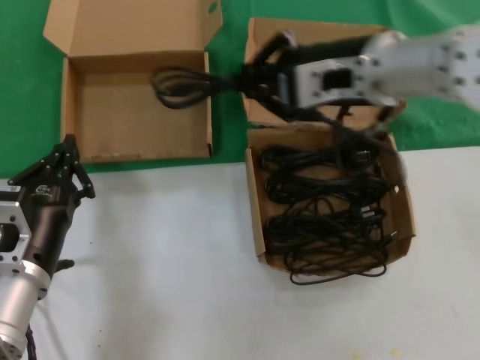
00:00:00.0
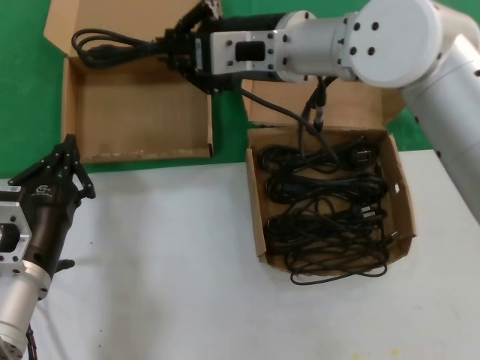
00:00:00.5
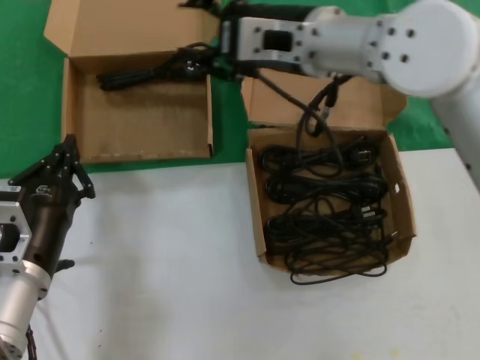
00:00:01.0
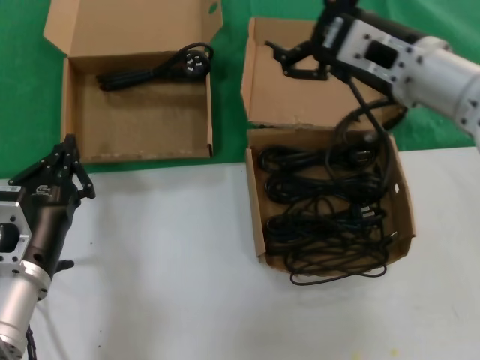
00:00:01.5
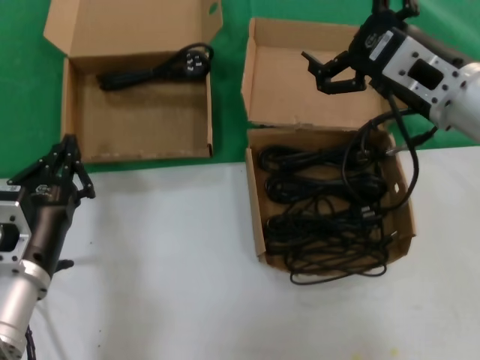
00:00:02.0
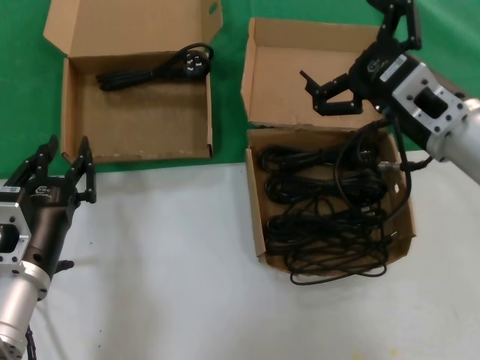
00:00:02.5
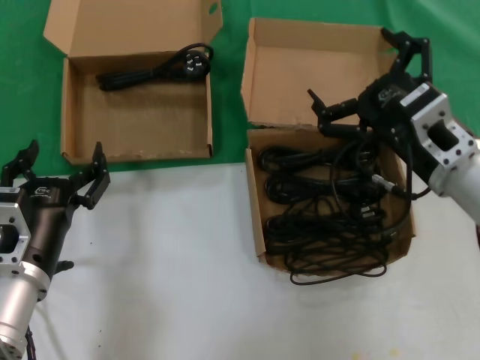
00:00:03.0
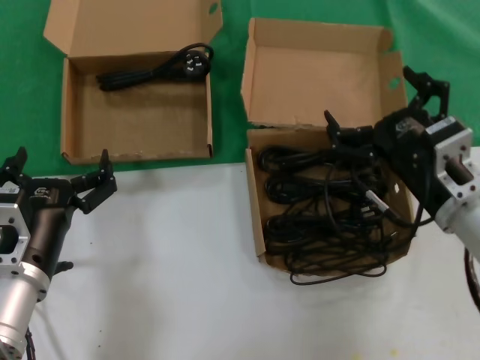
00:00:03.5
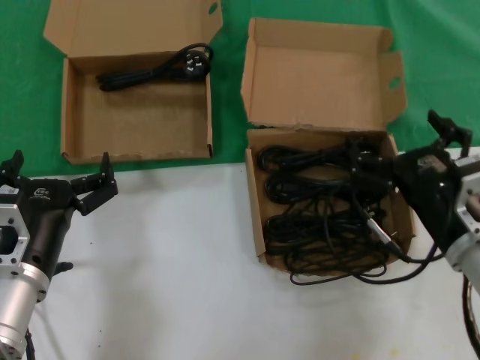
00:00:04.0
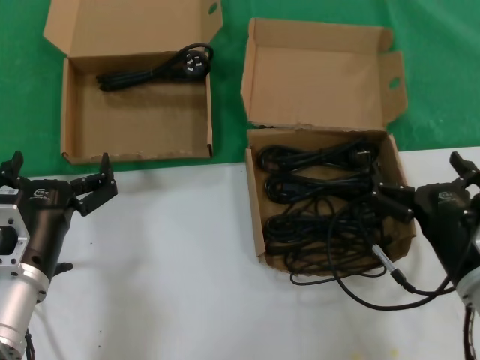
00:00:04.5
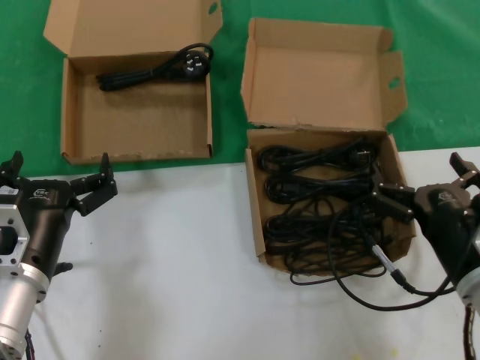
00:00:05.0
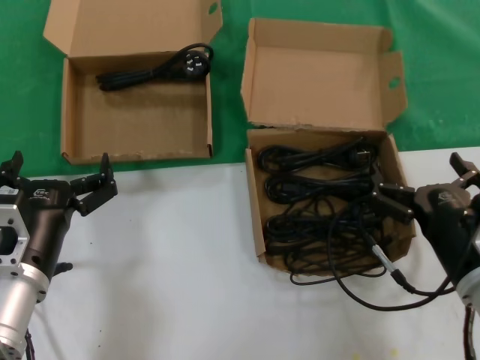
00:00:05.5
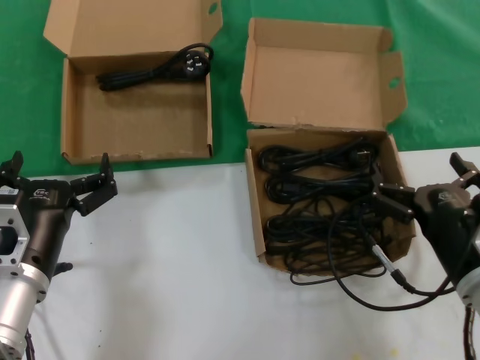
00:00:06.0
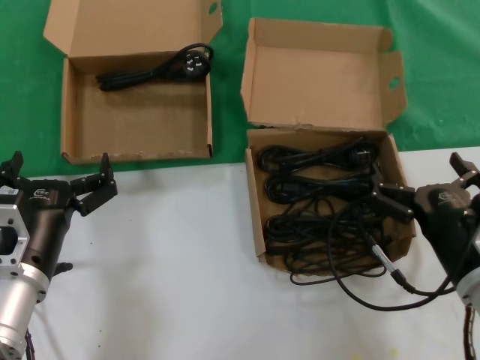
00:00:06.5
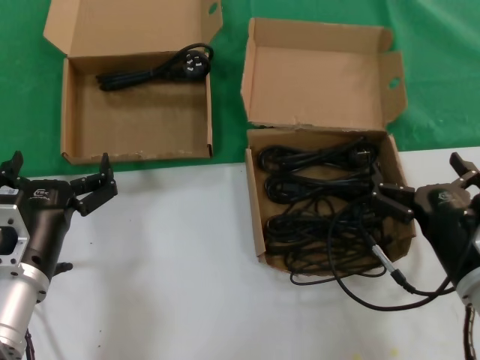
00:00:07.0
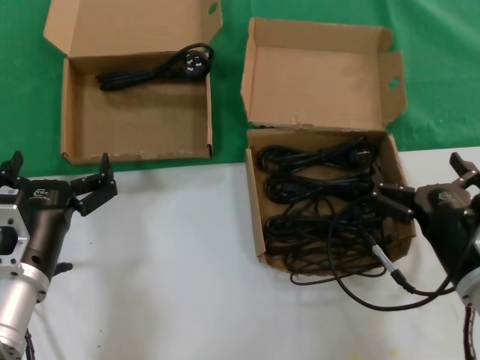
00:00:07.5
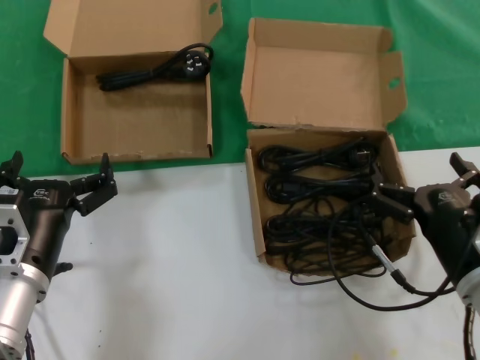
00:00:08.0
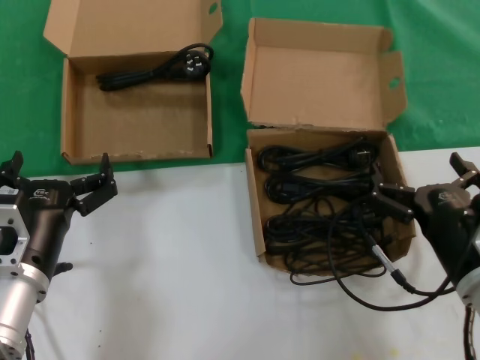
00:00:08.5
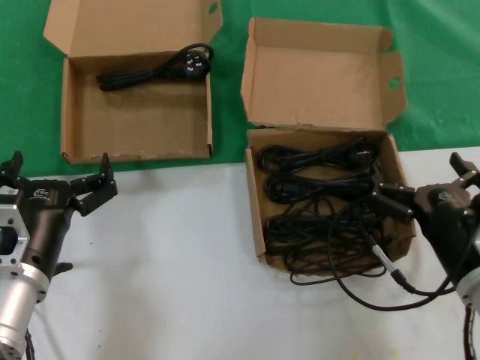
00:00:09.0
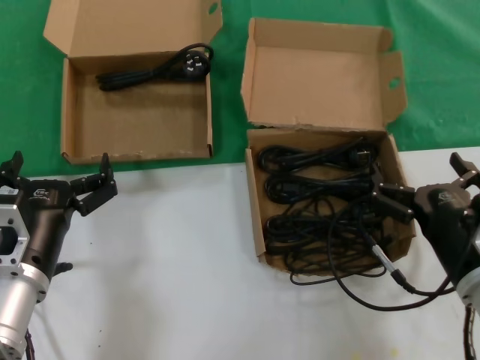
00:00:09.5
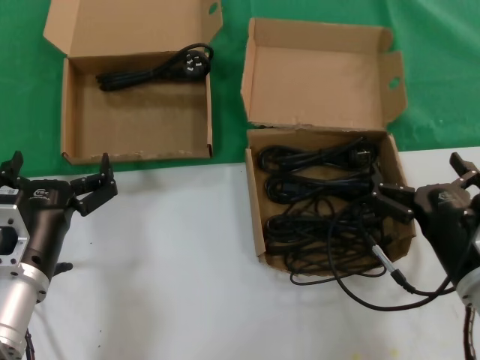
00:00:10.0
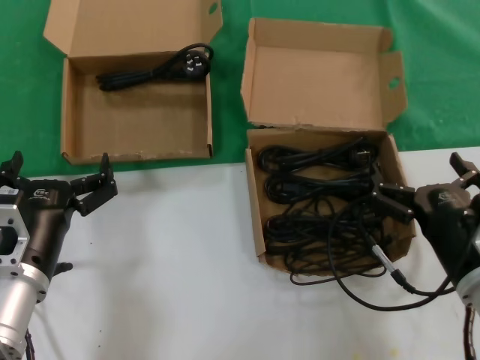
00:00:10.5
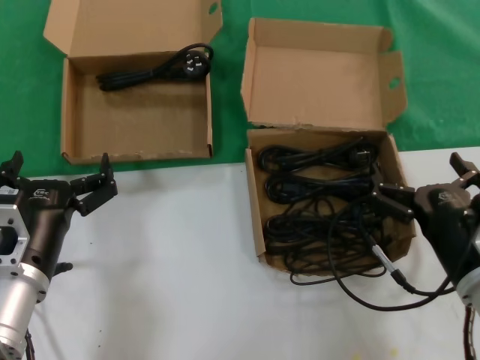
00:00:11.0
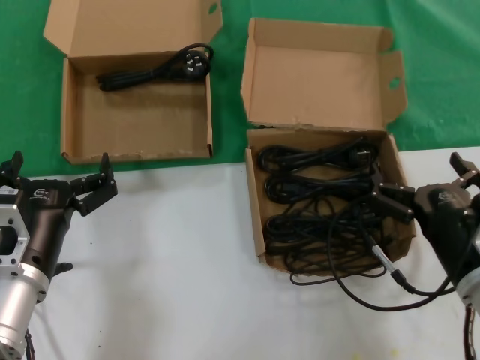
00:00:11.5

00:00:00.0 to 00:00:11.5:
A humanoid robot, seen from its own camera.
Task of the whole recording: take the parts from the box containing them and put them into an empty box.
00:00:00.0 to 00:00:02.0: The right hand is displaced to the right and downward by some 10 cm.
00:00:02.0 to 00:00:04.0: The right hand moves downward and backward, roughly 20 cm.
00:00:04.0 to 00:00:06.0: There are only small adjustments of the hands.
00:00:06.0 to 00:00:11.5: The two hands keep their place.

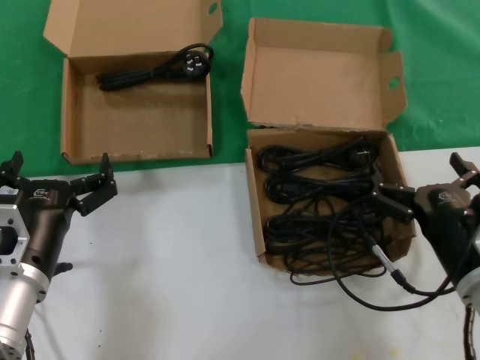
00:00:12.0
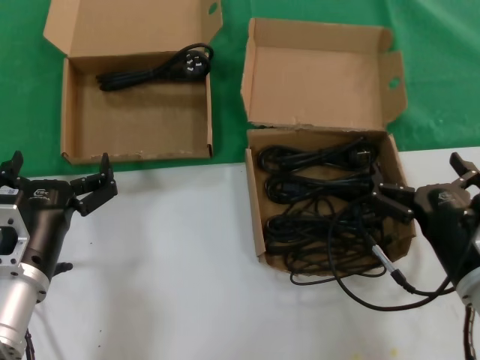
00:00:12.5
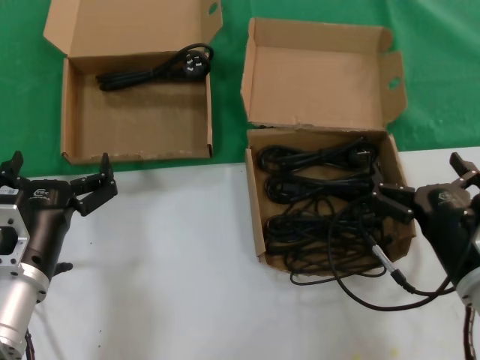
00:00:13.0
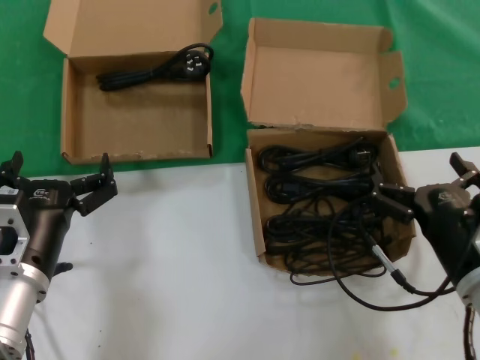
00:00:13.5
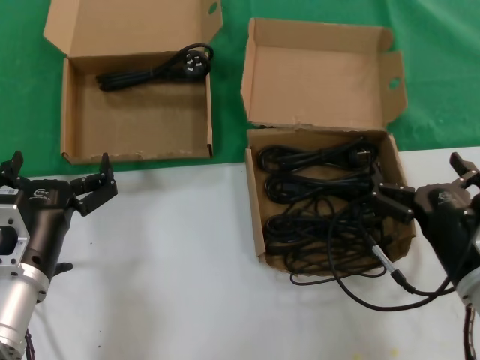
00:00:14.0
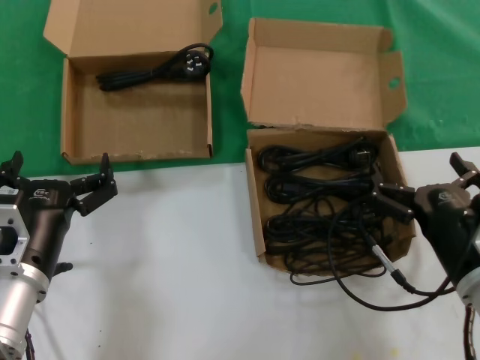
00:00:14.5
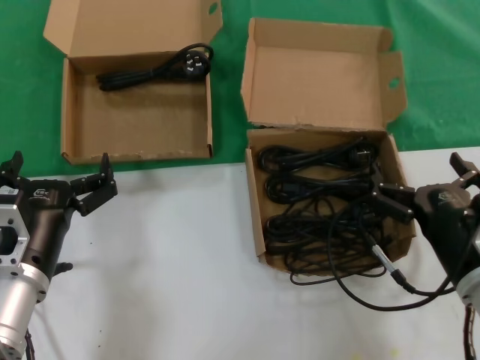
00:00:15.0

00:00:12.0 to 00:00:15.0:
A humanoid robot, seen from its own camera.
Task of the whole recording: take the parts from the box containing them and put them into an empty box.
00:00:12.0 to 00:00:15.0: Both hands stay about where they are.

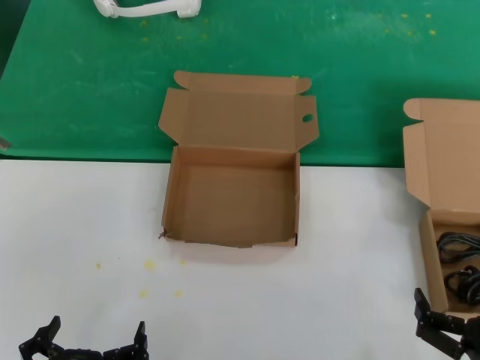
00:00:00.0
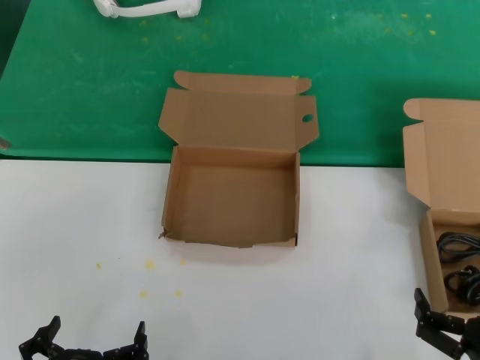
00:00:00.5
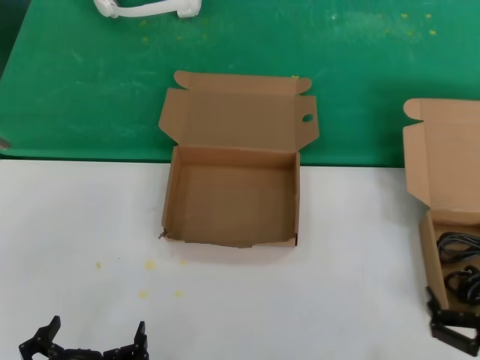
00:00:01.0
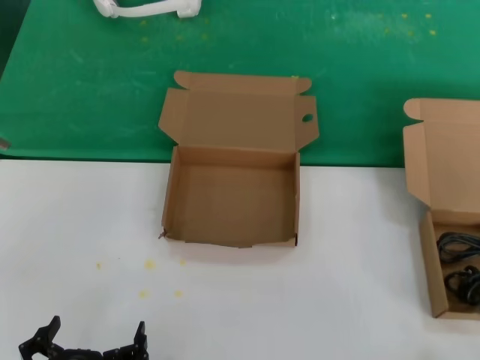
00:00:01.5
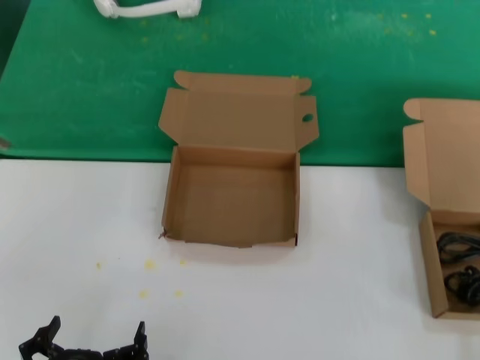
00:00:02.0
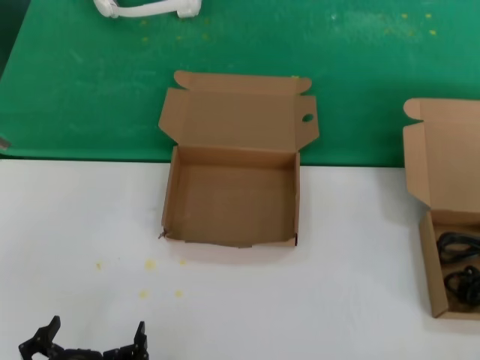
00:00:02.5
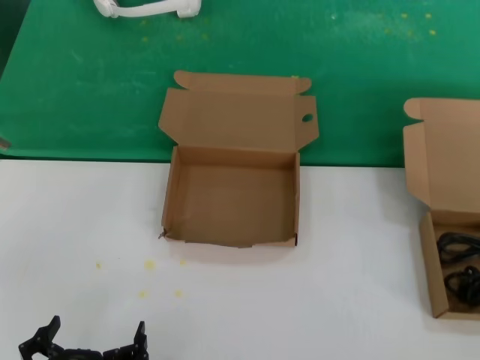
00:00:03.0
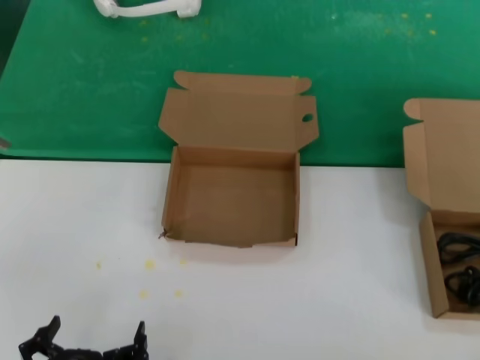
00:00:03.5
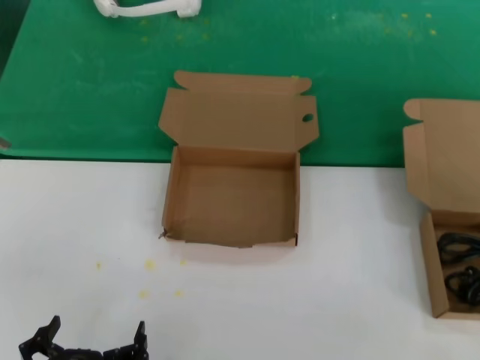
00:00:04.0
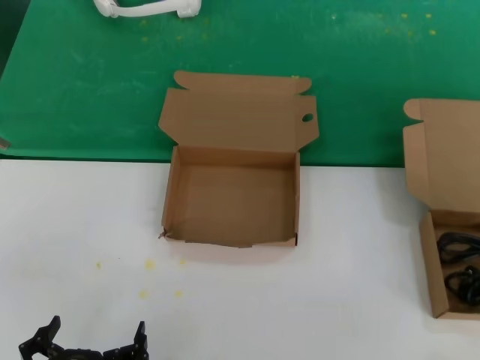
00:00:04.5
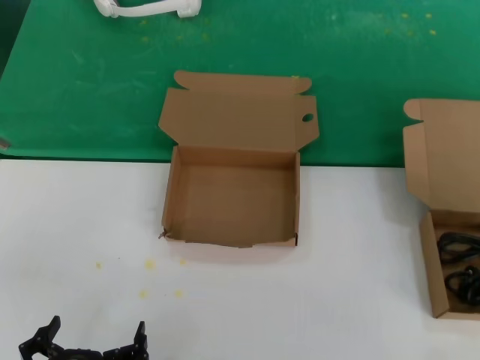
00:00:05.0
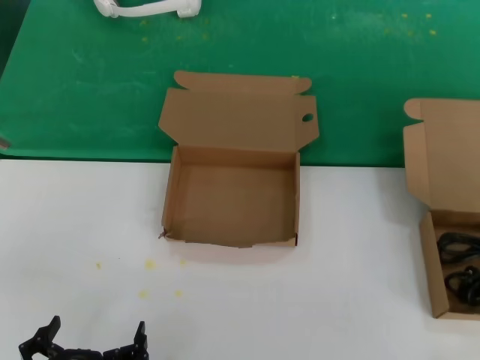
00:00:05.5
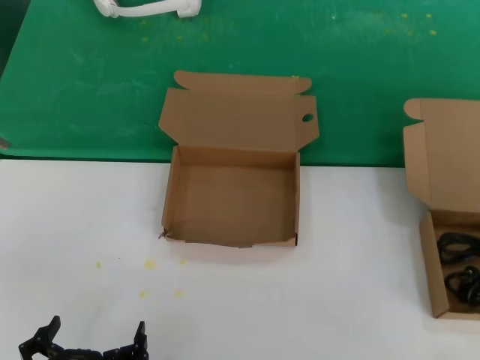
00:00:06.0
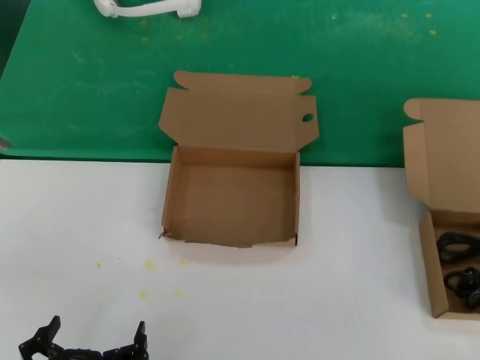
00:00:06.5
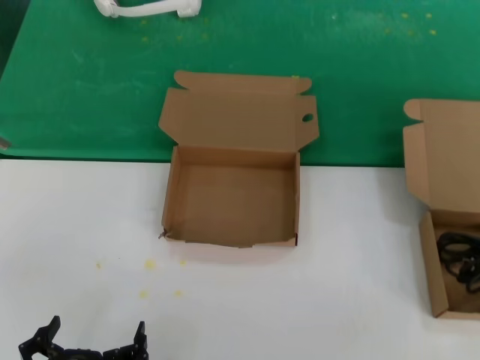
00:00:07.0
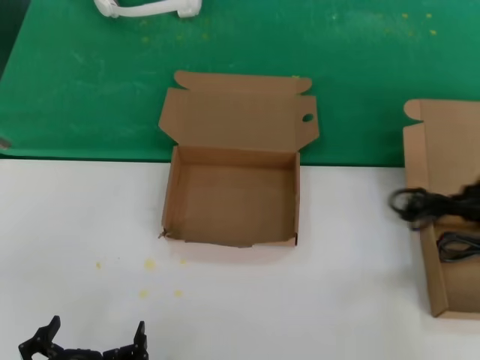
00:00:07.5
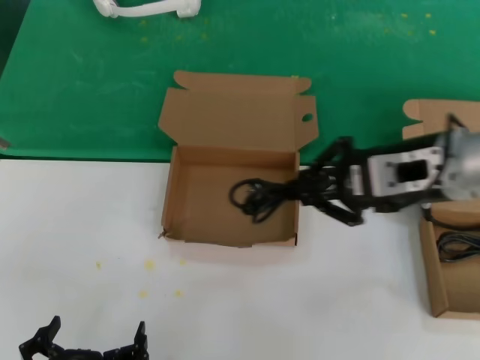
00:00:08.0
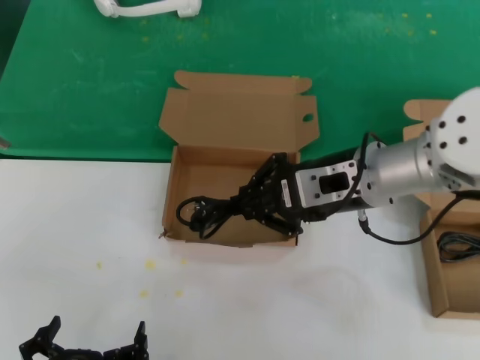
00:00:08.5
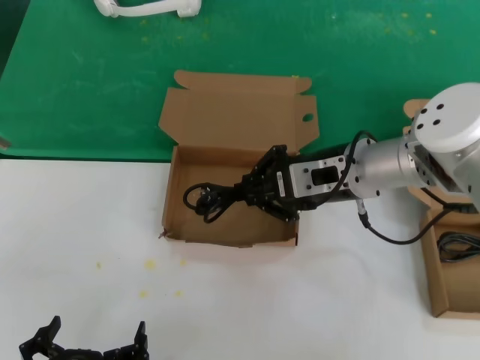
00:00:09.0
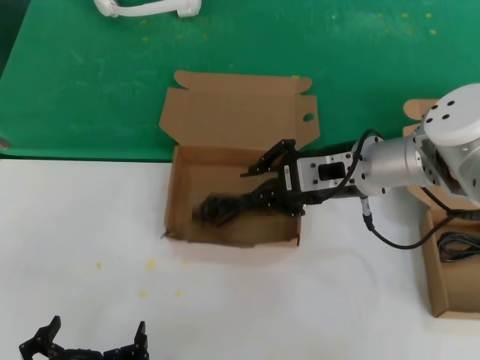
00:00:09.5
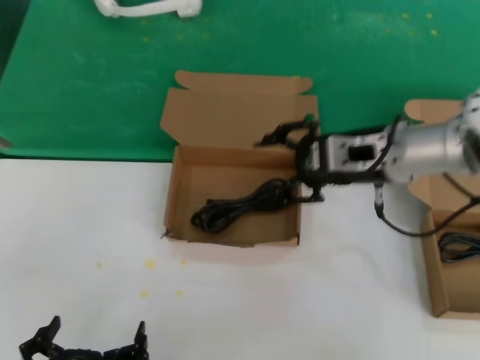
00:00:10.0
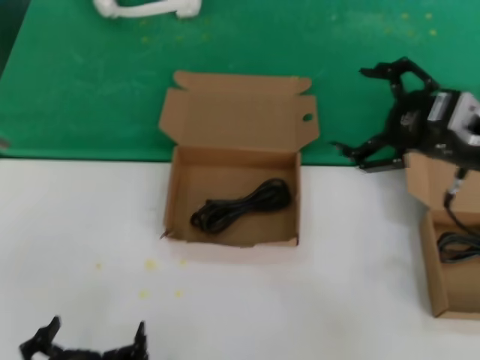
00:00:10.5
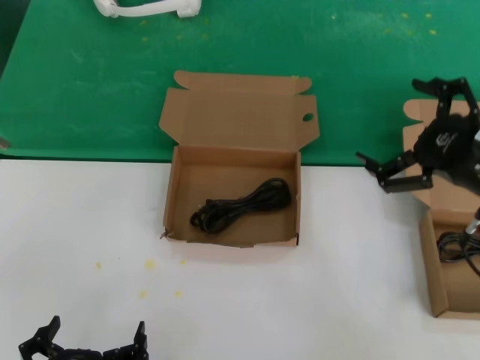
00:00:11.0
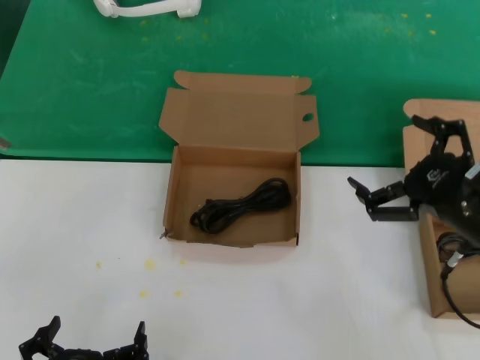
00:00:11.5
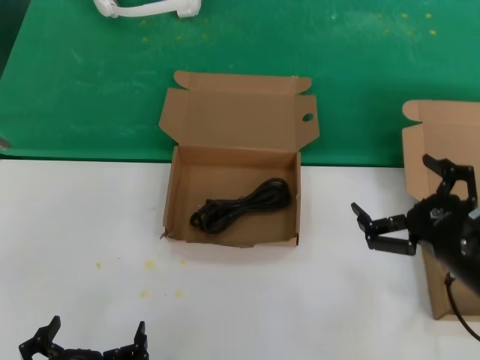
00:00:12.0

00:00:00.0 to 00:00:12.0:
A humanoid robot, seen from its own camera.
Task of the whole recording: take the parts from the box containing them and put them into an empty box.
Step, 00:00:00.0 to 00:00:07.0: Grasp the data cable.
Step, 00:00:07.5 to 00:00:09.5: Place the data cable in the another box.
00:00:00.0 to 00:00:02.0: The right hand goes some 15 cm to the right and upward.
00:00:02.0 to 00:00:04.0: The right hand shifts some 20 cm forward and upward.
00:00:06.0 to 00:00:08.0: The right hand heads to the left and upward, covering some 25 cm.
00:00:08.0 to 00:00:10.0: The right hand shifts roughly 10 cm forward.
00:00:10.0 to 00:00:12.0: The right hand heads downward, backward and to the right, covering about 25 cm.
